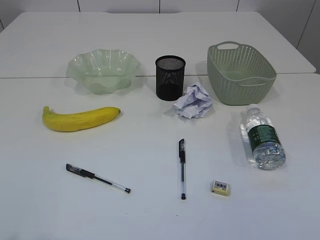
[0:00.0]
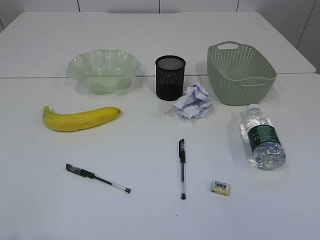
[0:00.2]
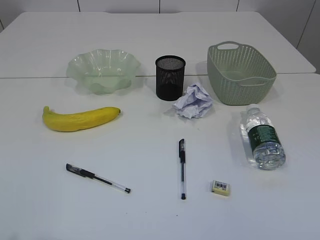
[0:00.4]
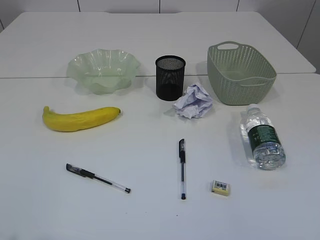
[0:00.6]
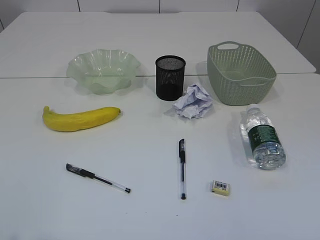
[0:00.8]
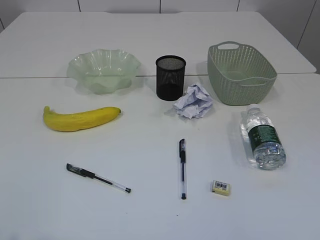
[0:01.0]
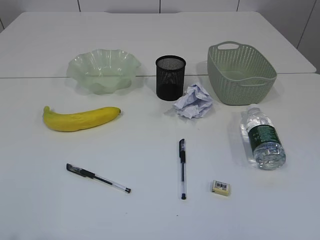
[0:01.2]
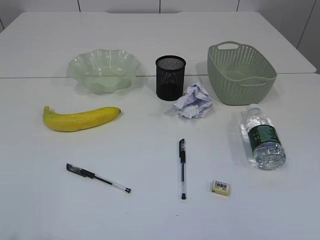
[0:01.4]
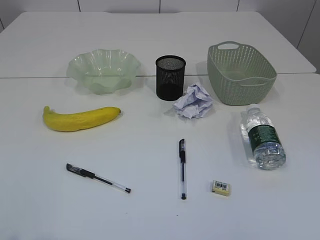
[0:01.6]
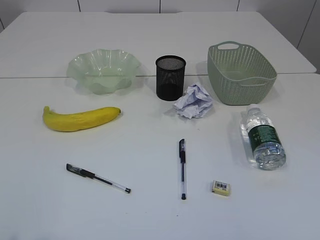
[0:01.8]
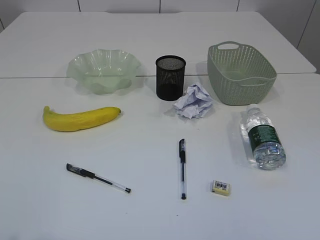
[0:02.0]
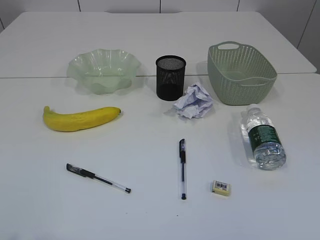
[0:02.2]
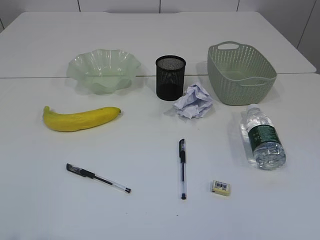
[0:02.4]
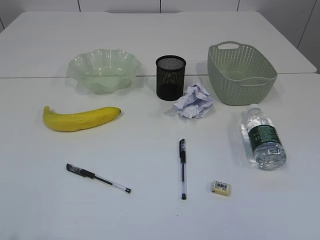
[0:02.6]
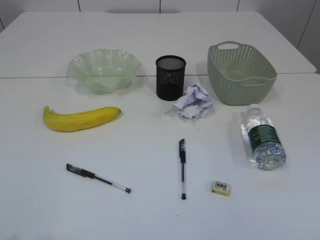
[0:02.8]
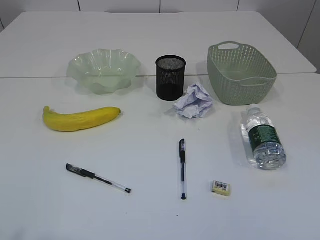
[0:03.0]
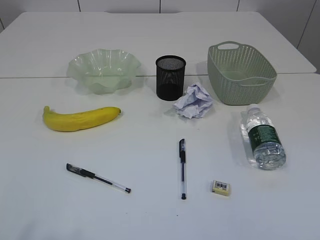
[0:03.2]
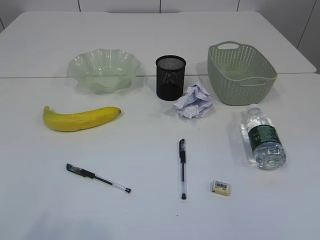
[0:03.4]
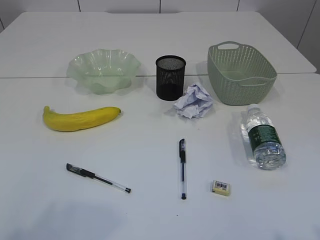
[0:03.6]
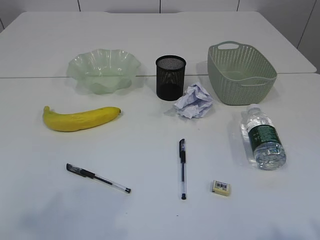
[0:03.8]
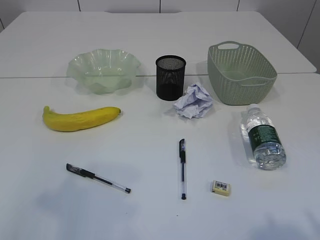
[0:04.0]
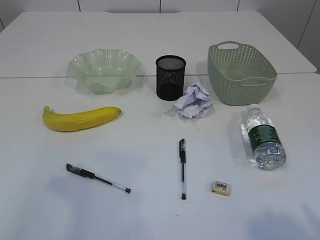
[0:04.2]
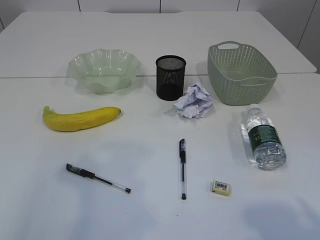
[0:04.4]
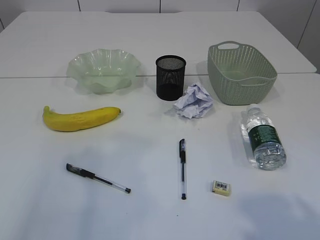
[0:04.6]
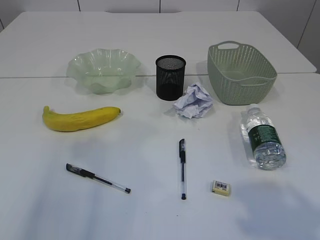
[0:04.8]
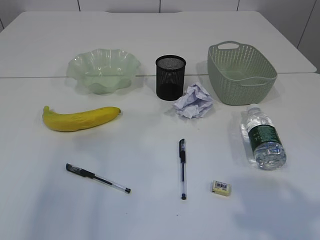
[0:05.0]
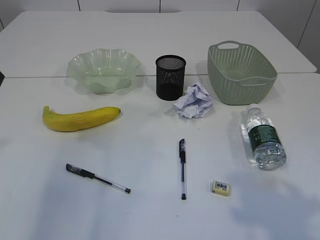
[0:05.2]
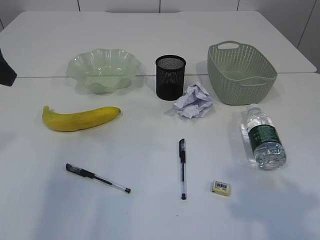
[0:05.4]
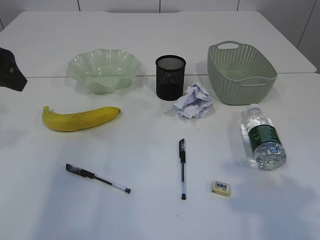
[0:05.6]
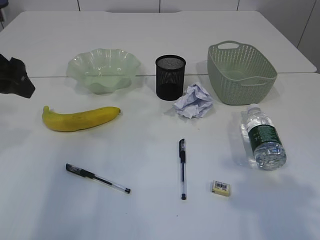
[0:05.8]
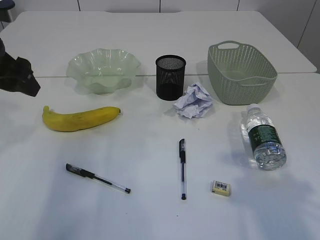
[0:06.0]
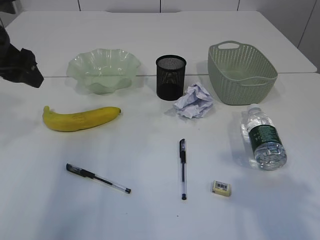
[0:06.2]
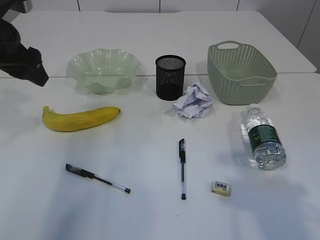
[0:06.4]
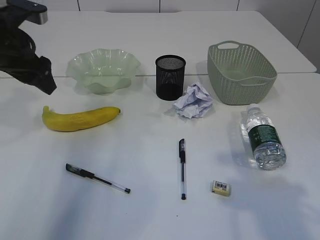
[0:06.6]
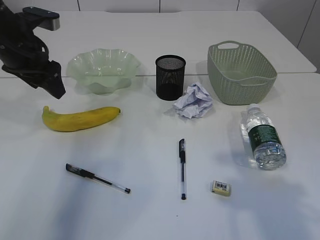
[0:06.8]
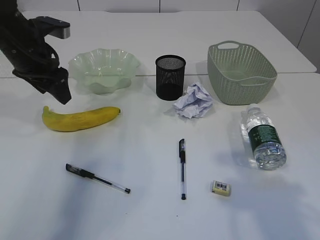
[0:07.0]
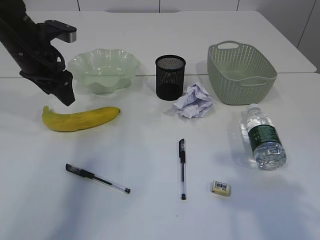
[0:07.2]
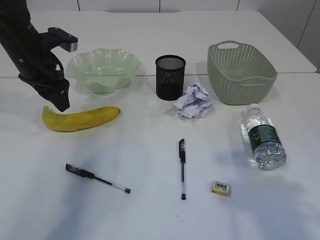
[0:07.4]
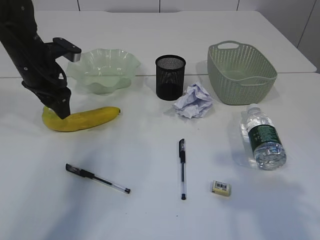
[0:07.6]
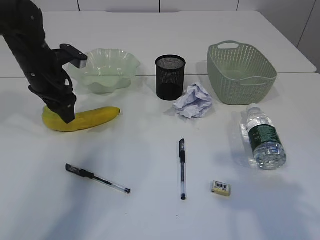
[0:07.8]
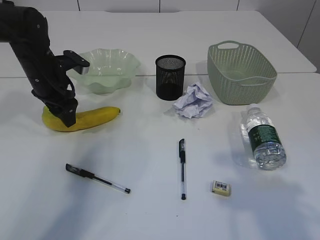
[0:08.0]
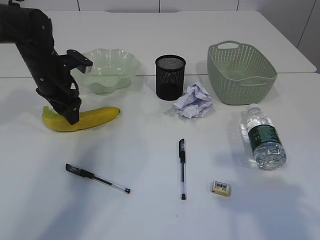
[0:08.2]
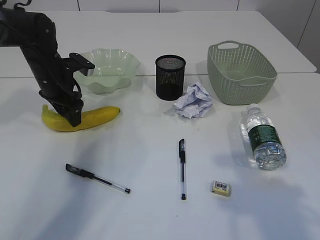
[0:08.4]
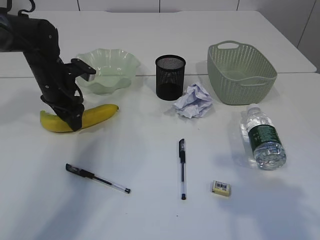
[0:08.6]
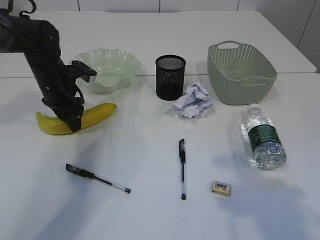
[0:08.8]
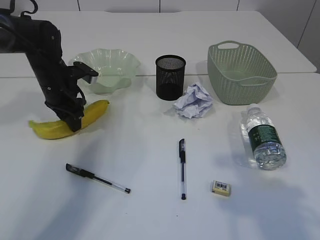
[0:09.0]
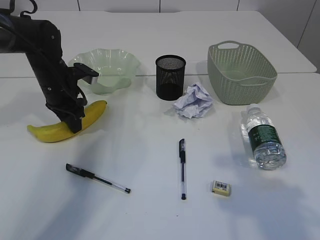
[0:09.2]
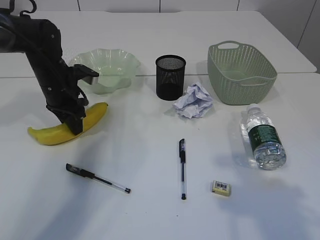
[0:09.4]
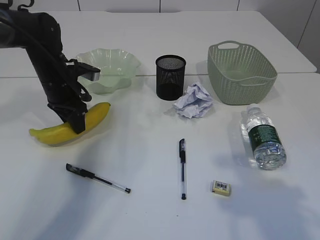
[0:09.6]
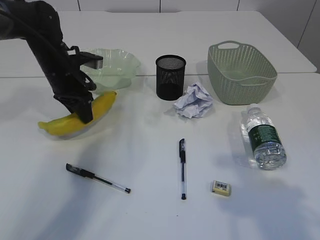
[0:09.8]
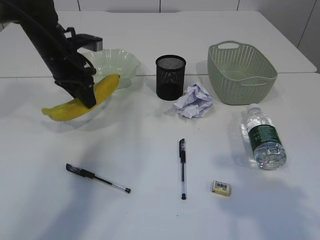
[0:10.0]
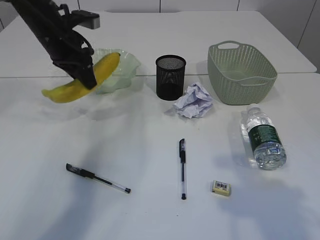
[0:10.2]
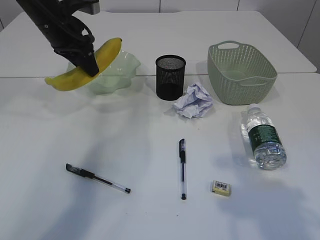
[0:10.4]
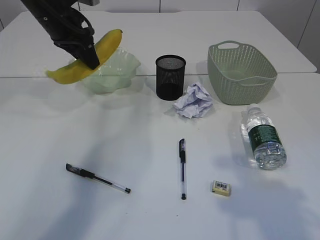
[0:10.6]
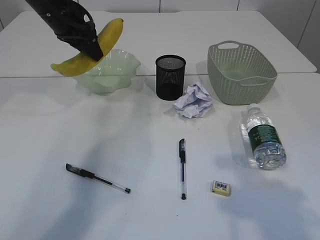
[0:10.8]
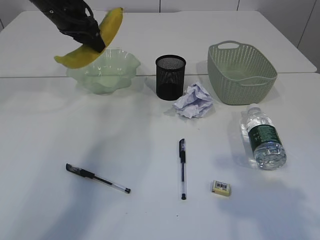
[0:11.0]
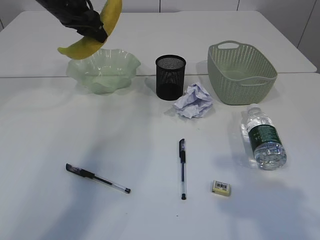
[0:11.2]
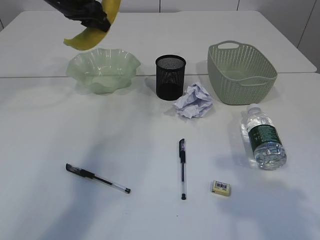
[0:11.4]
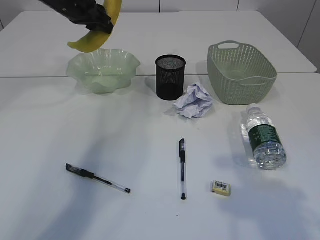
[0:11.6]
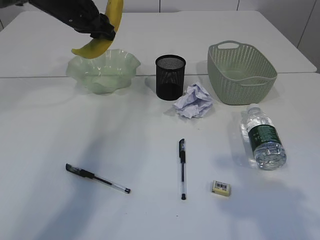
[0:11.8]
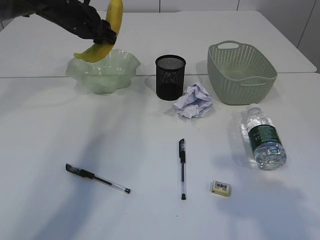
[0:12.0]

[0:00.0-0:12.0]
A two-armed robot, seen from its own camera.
0:01.6 to 0:03.0: Neither gripper changes place.
0:03.0 to 0:04.4: The left gripper moves forward and upward, about 15 cm.
0:04.4 to 0:06.0: The left gripper travels forward by roughly 20 cm, while the right gripper moves forward, approximately 10 cm.
0:06.0 to 0:07.6: The left gripper shifts some 15 cm forward and downward.
0:07.6 to 0:09.0: The left gripper heads downward, covering approximately 5 cm.
0:09.0 to 0:10.4: The left gripper travels upward by roughly 10 cm.
0:10.4 to 0:12.0: The left gripper is displaced forward by about 5 cm.

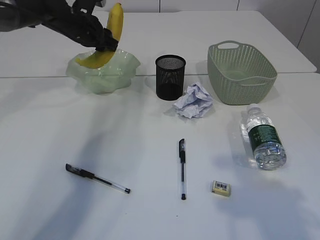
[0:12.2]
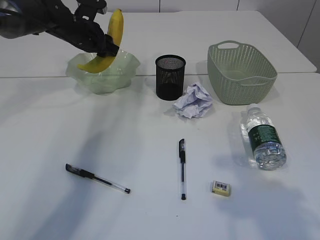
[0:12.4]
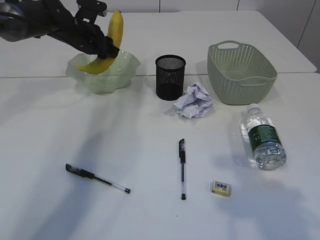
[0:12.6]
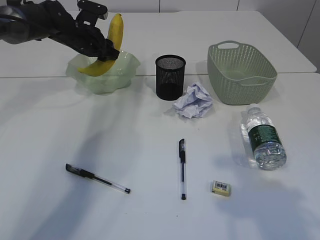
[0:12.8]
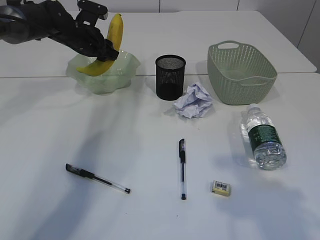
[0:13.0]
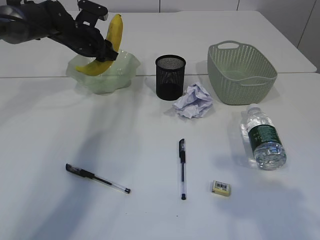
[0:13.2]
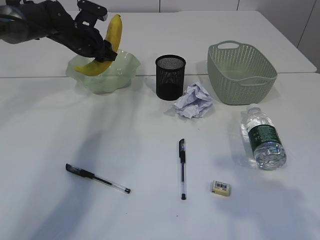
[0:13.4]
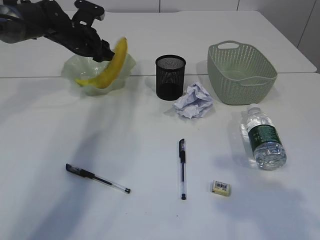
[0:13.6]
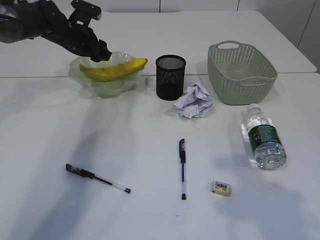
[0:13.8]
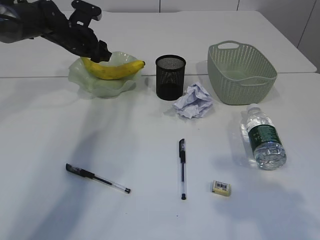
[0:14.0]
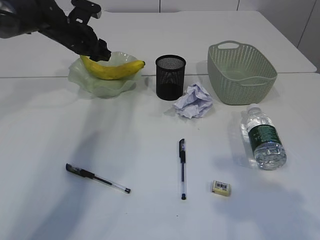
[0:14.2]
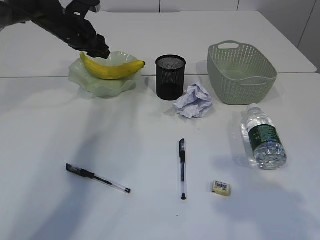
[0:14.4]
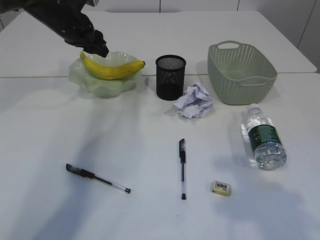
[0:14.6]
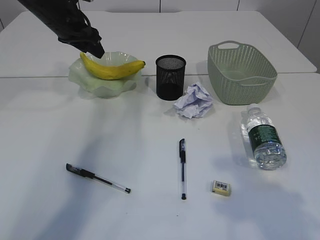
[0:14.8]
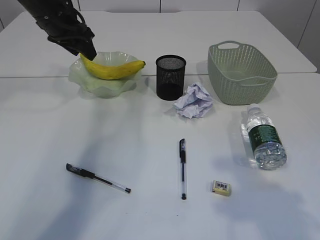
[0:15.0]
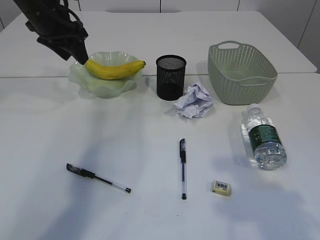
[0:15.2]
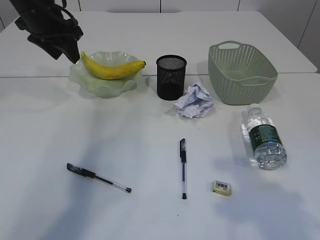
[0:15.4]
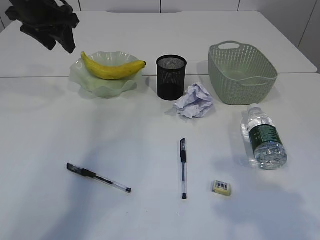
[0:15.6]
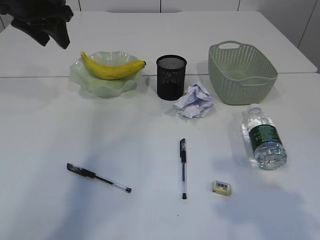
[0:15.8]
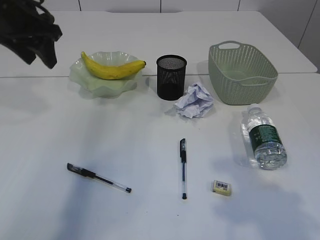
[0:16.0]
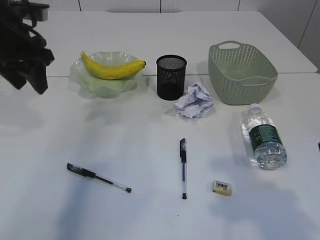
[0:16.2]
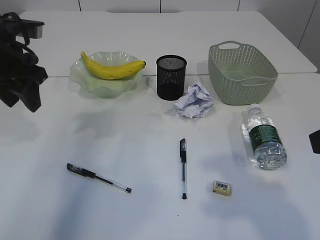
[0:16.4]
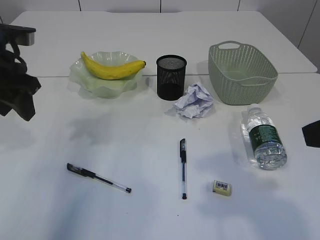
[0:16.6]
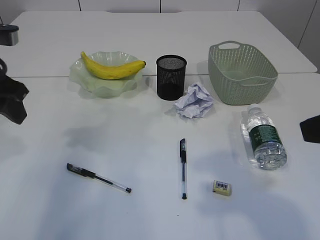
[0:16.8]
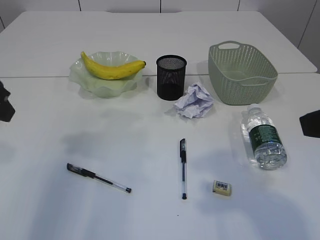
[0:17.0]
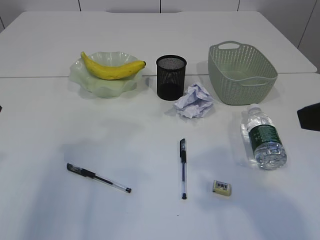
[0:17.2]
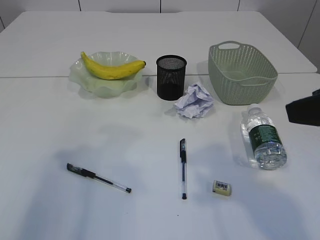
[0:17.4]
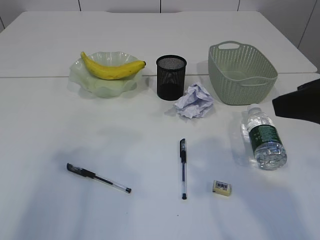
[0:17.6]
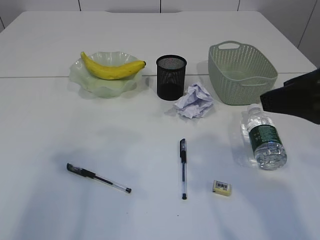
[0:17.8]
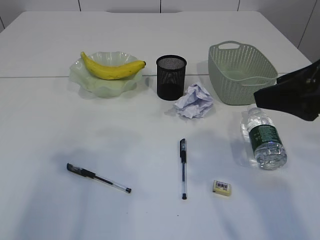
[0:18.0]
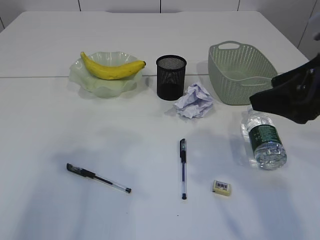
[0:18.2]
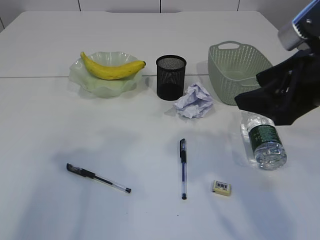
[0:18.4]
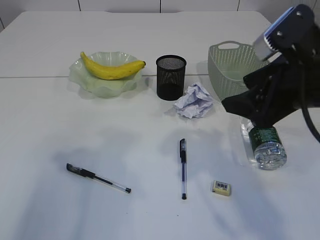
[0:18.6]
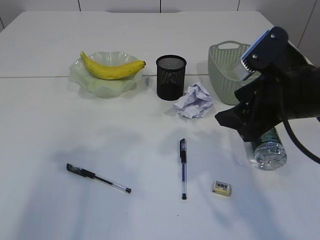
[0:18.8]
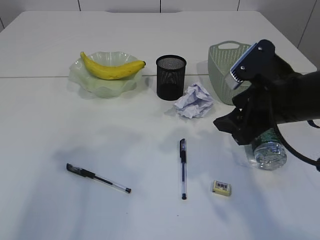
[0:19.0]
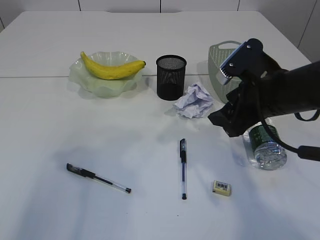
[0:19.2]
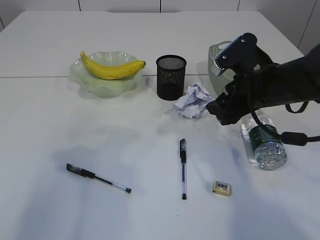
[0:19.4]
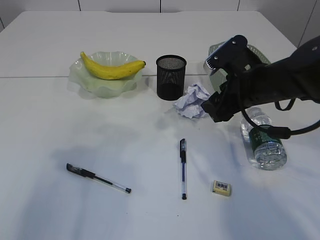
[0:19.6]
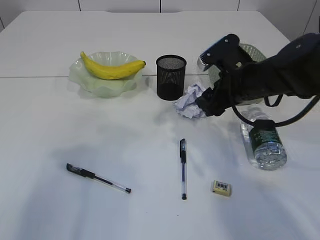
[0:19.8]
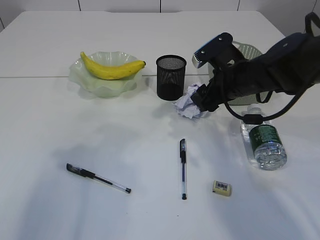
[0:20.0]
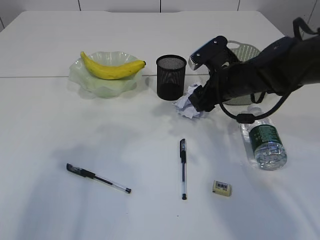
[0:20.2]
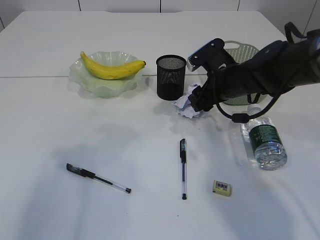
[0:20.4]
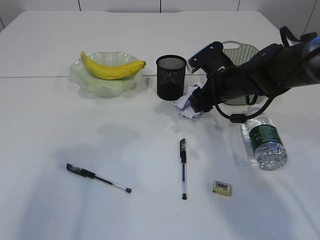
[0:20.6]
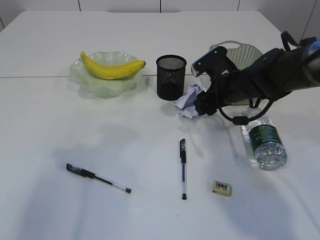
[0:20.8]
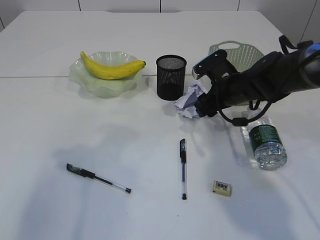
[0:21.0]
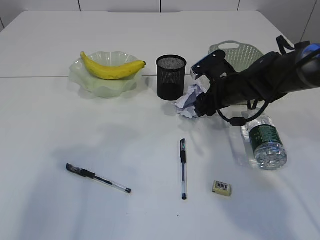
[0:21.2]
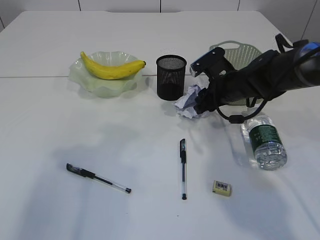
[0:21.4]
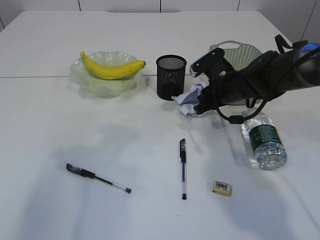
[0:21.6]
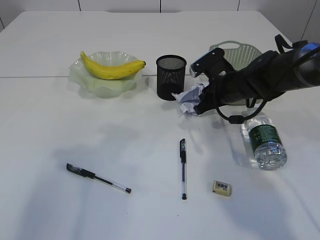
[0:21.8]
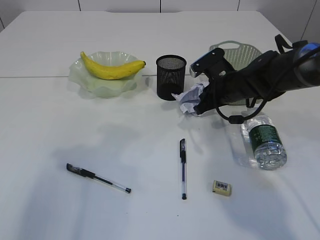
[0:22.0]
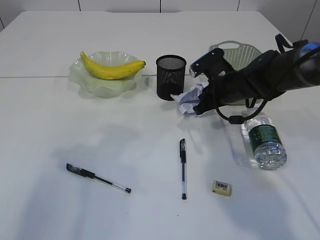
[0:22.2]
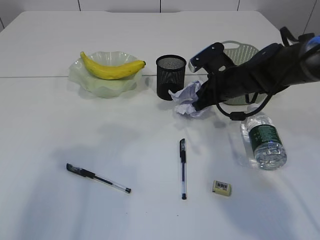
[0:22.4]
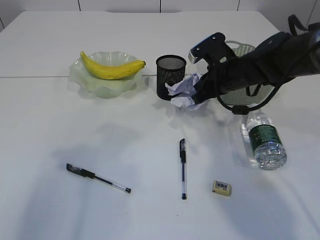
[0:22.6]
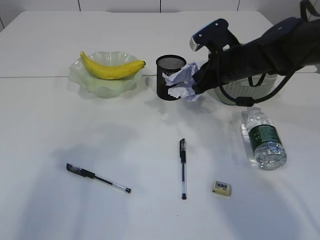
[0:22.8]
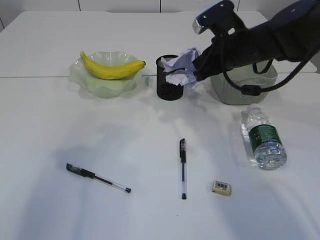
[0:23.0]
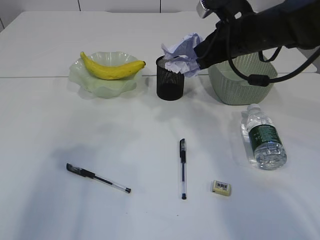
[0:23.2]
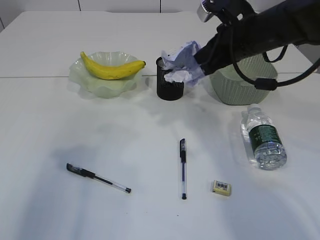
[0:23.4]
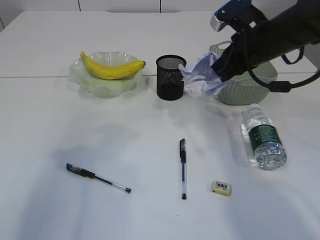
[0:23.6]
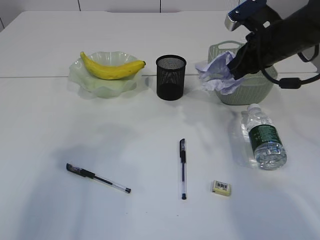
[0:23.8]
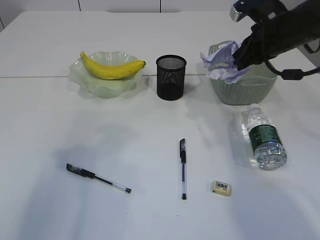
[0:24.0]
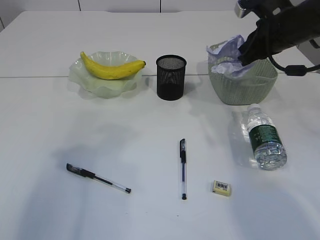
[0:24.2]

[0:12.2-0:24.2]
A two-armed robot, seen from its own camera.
Step, 0:12.2 to 0:14.4: Place the banana in the plate.
Step, 0:14.6 to 0:23.0: Pick up the waste paper.
0:12.2 to 0:13.8: The grippers move only a little.
0:13.8 to 0:15.2: The left gripper goes approximately 10 cm upward and backward.
0:15.2 to 0:16.6: The left gripper moves backward, roughly 15 cm.
0:16.6 to 0:18.2: The right gripper shifts some 10 cm forward; the left gripper moves backward, about 15 cm.
0:18.2 to 0:19.8: The right gripper is displaced forward, downward and to the left by some 20 cm.
0:19.8 to 0:21.2: The right gripper heads forward and downward, covering some 10 cm.
0:21.2 to 0:22.6: The right gripper closes.
0:22.6 to 0:24.2: The right gripper moves upward and to the right, about 10 cm.
